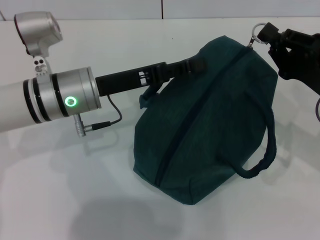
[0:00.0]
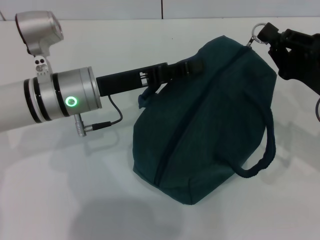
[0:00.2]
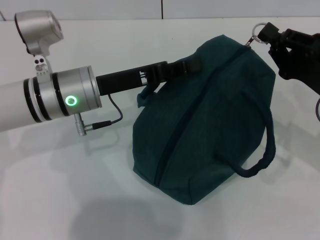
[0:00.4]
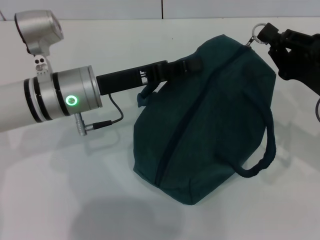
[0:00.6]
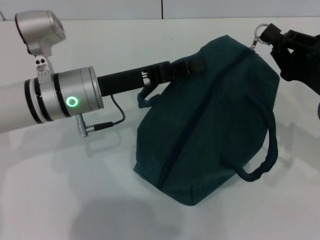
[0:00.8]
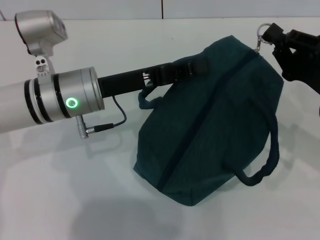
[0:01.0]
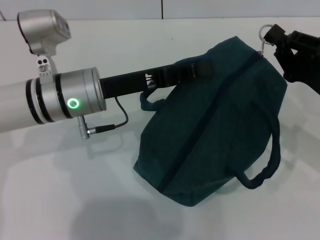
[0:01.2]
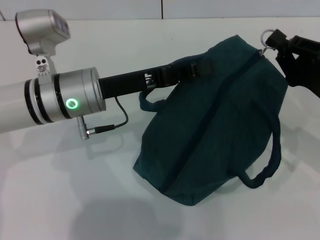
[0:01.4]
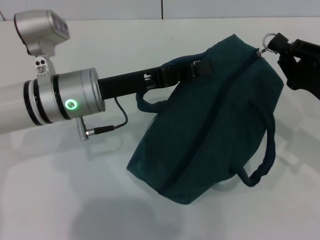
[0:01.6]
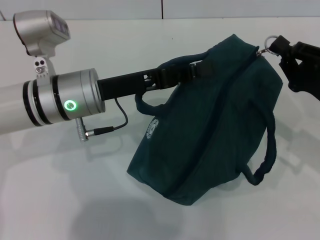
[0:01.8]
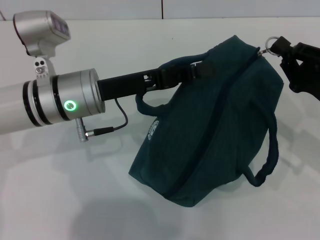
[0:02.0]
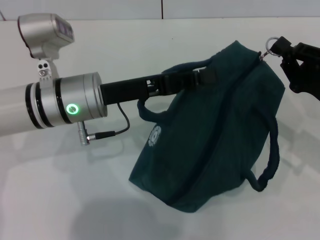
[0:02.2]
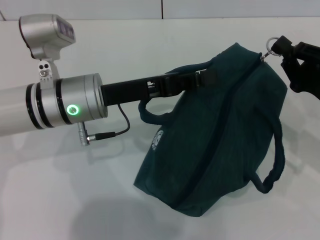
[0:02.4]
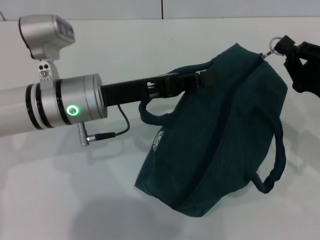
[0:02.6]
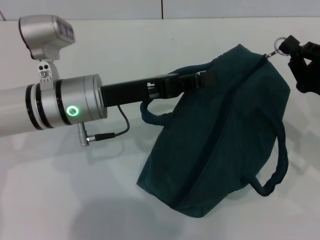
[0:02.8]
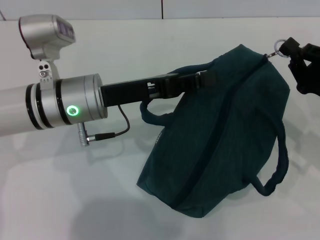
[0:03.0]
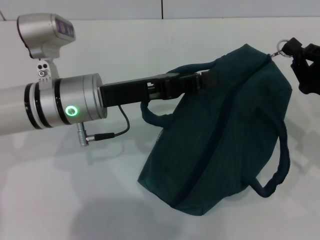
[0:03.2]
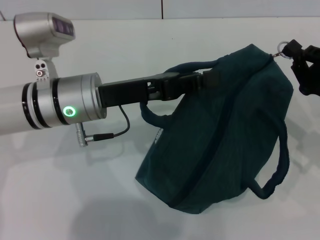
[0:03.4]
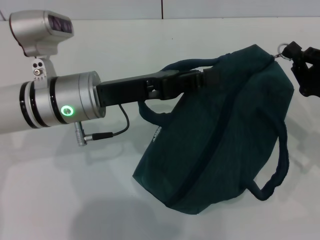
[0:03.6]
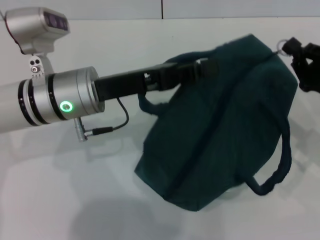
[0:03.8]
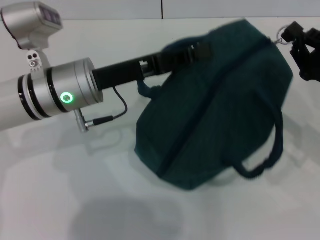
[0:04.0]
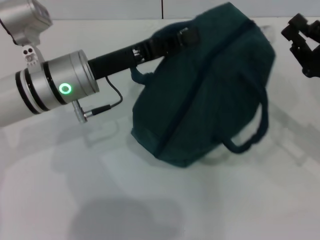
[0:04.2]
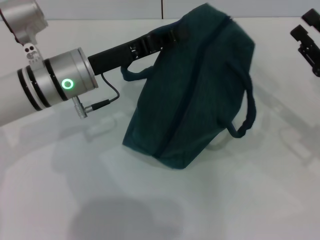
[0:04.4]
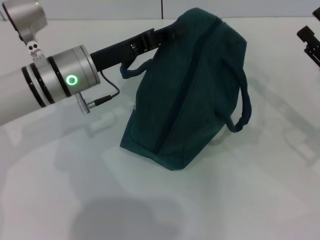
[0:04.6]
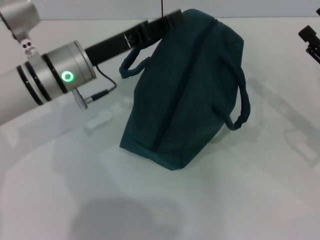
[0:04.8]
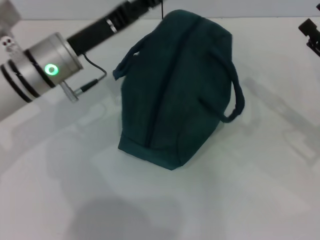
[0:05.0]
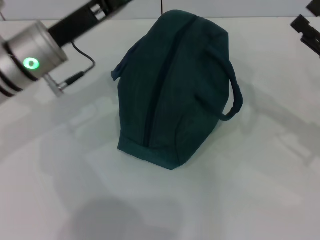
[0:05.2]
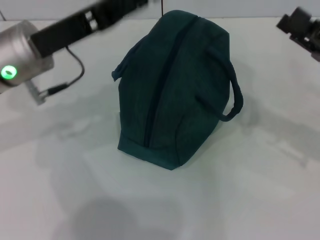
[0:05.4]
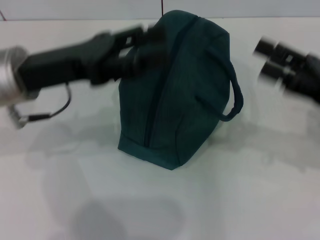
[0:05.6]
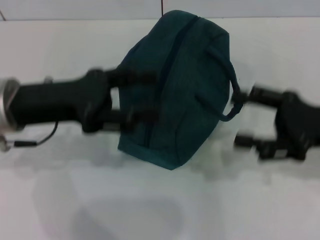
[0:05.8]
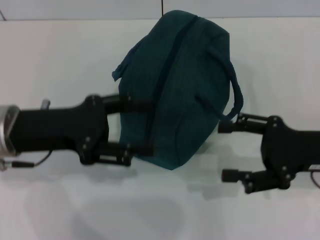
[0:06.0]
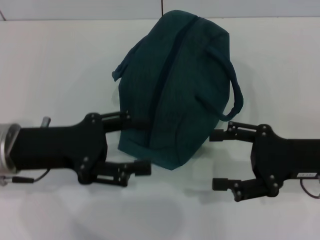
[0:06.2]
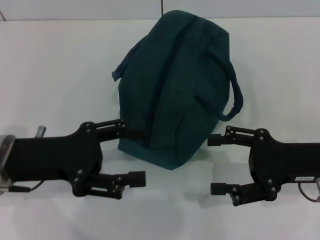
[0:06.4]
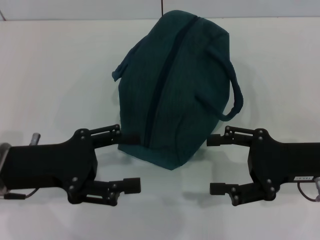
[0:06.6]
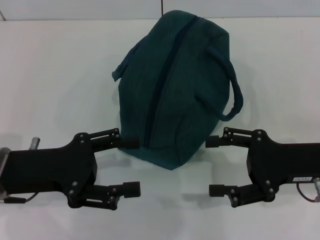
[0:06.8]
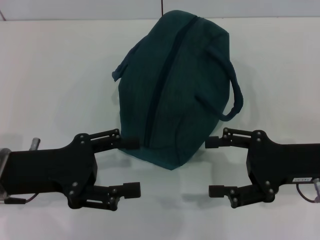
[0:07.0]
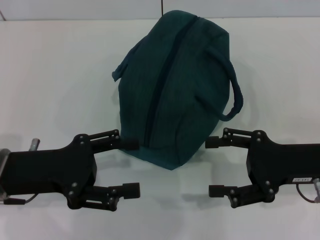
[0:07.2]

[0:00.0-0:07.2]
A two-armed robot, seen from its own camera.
Step, 0:00.0 to 0:04.0: Zip up the lunch bag with your right hand.
Step, 0:04.4 to 0:04.8: Hold the lunch bag with your left hand.
0:00.0 to 0:01.4: The left gripper closes.
0:01.4 to 0:02.8: The grippers make only small movements.
0:04.4 to 0:05.8: The left gripper goes approximately 10 cm to the left and backward, and opens, while the right gripper moves roughly 5 cm, and opens.
0:05.8 to 0:07.2: The left gripper is displaced downward and backward by about 5 cm.
